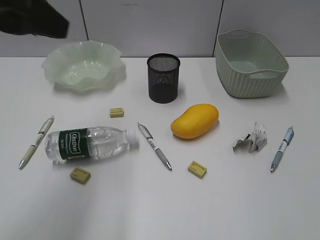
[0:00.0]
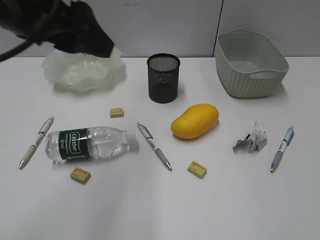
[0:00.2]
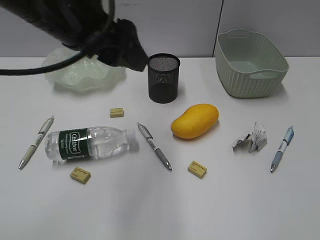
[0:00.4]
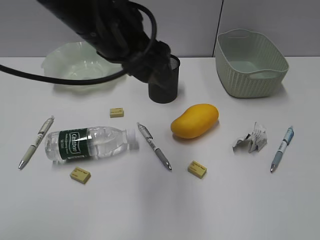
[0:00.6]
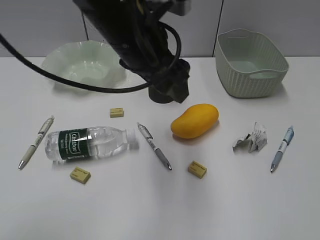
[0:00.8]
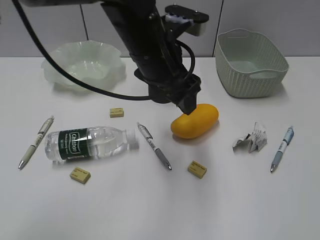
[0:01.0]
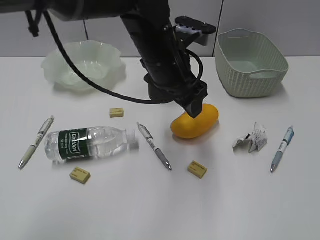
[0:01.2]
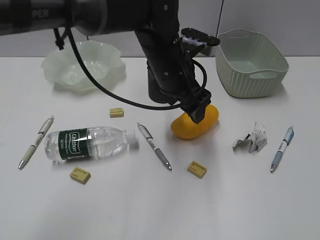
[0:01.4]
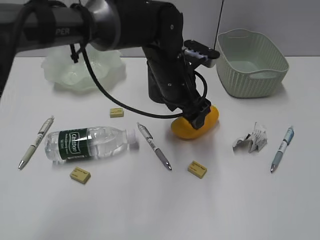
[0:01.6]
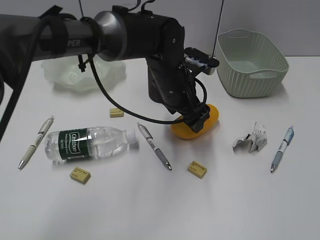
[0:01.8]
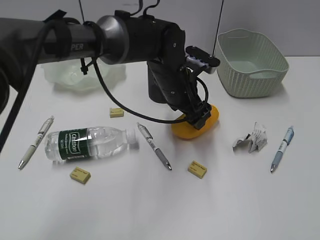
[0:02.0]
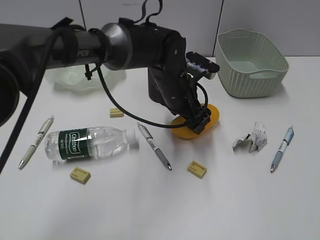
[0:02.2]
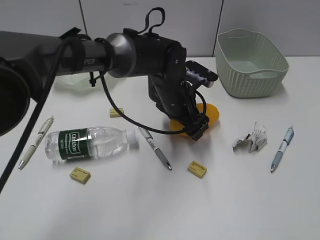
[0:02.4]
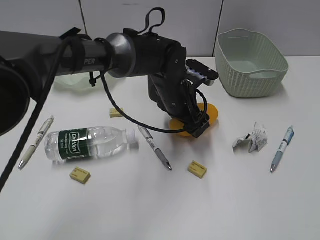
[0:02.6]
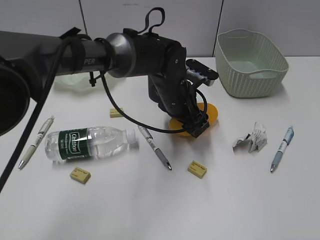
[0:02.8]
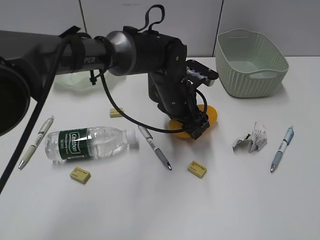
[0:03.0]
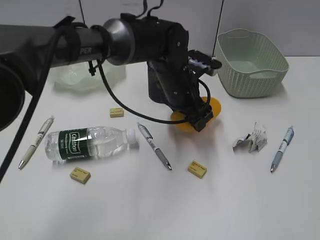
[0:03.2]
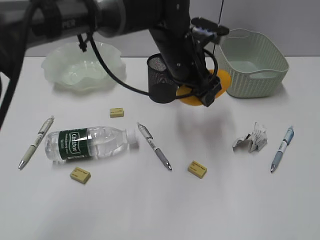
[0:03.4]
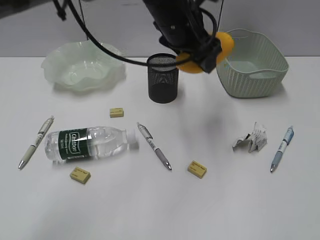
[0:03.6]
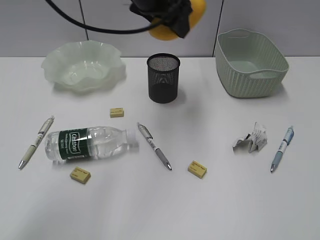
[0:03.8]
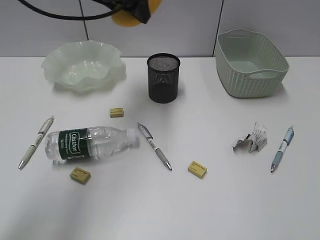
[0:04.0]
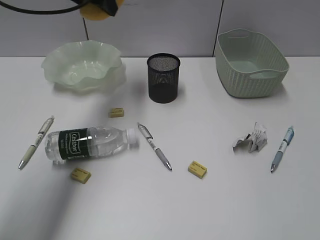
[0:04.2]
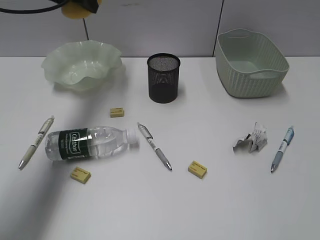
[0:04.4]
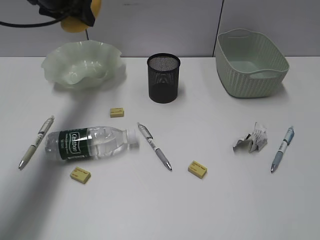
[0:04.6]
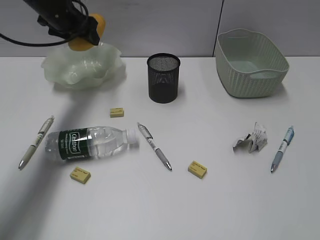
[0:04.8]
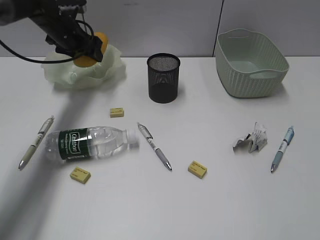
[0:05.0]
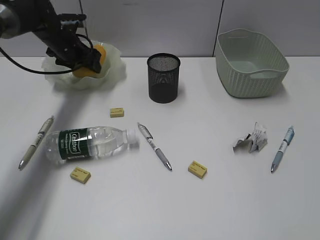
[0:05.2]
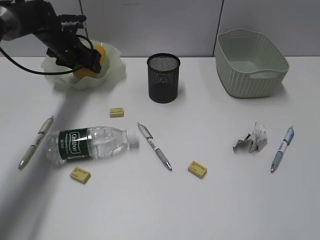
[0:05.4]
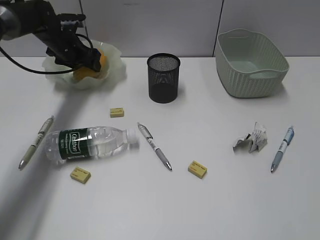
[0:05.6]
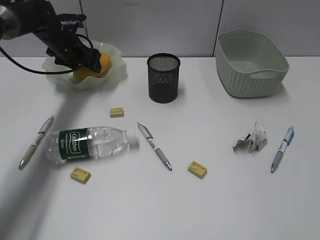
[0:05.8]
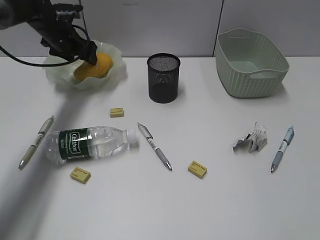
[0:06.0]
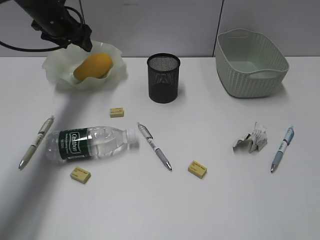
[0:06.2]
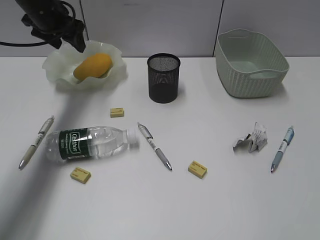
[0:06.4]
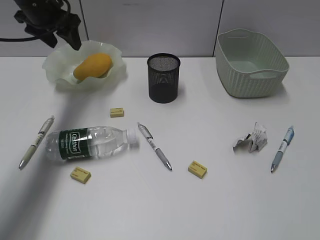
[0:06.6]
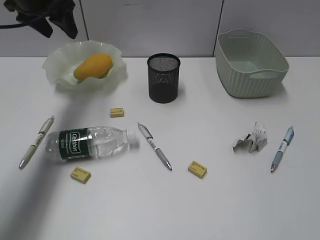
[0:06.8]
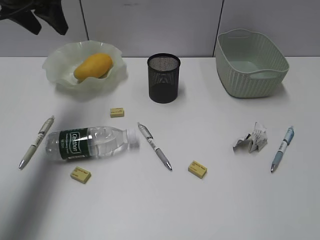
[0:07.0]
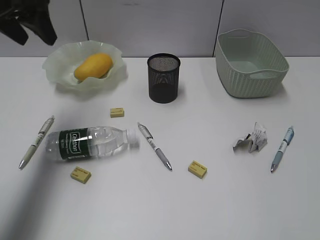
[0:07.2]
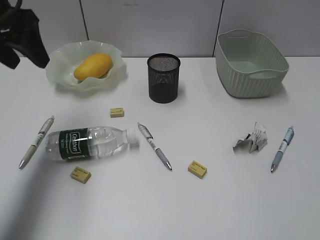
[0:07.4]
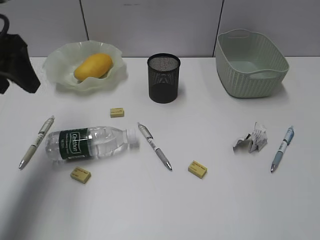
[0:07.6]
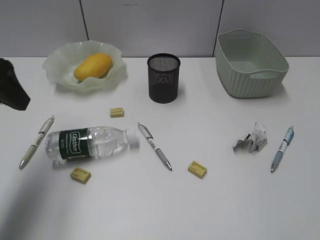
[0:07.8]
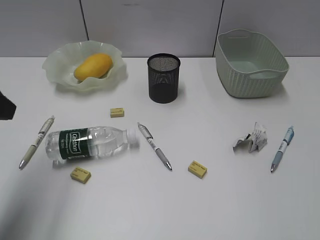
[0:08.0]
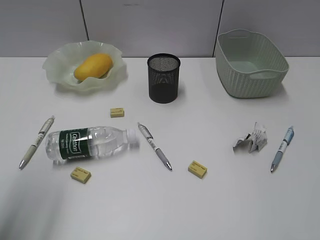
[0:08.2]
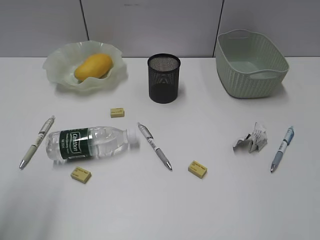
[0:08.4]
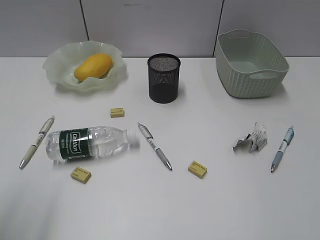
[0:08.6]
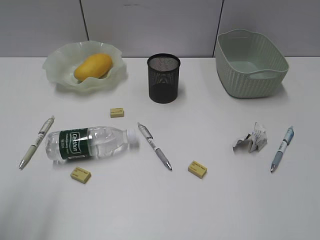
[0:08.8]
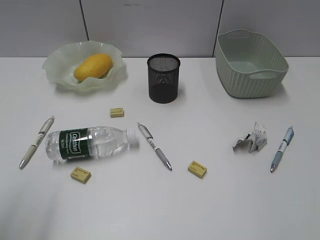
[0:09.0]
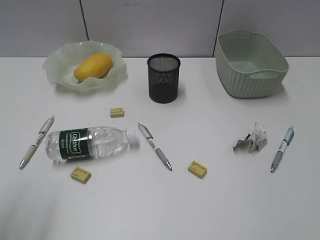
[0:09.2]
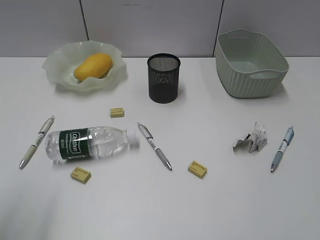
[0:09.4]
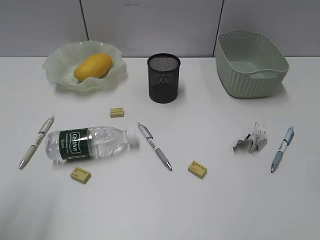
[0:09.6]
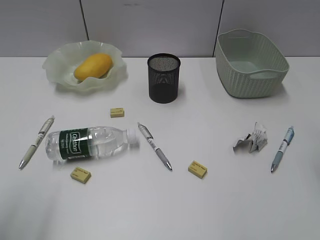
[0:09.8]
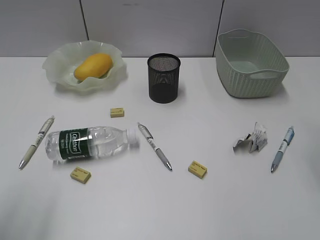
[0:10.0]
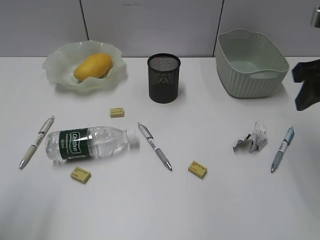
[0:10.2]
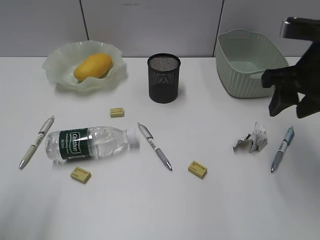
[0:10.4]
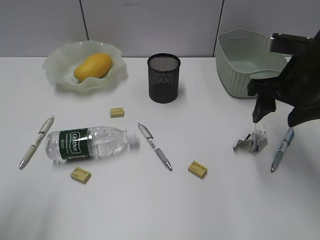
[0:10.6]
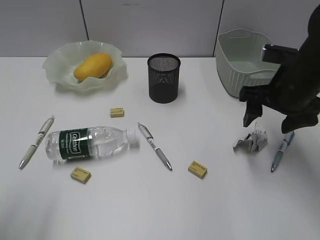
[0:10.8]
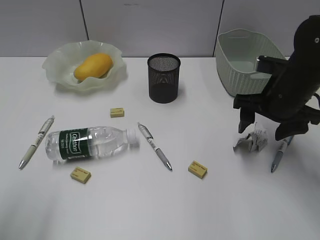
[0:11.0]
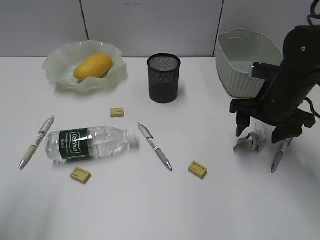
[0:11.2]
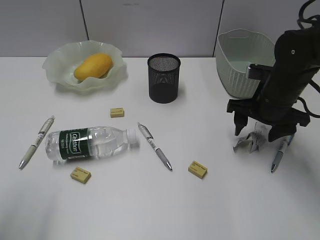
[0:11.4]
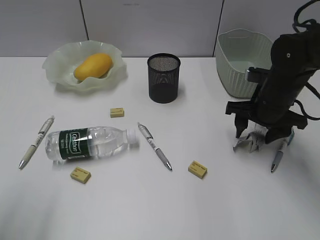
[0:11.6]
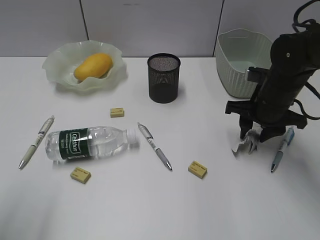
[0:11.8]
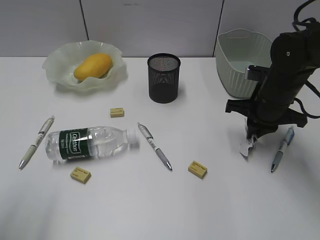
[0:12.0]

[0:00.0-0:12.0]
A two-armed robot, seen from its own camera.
Step, 0:00.0 to 0:02.8: Grasp the mango with left gripper.
Step, 0:03.0 to 0:06.0: Place the mango in the plate with left gripper.
0:00.0 to 0:01.6: The left gripper travels to the right, downward and forward by about 30 cm.
0:01.6 to 0:03.0: The left gripper moves downward, about 5 cm.
0:03.0 to 0:04.4: The left gripper goes approximately 30 cm to the left, upward and forward.
0:04.4 to 0:06.0: The left gripper is displaced downward by approximately 15 cm.
0:06.0 to 0:07.6: The left gripper travels backward and upward by about 30 cm.
0:07.6 to 0:09.0: The left gripper moves backward, some 20 cm.
0:09.0 to 0:10.4: The right gripper shifts some 25 cm forward.
0:10.4 to 0:12.0: The right gripper goes roughly 15 cm downward and forward, and closes up.

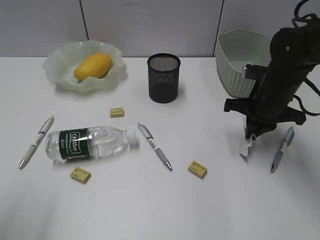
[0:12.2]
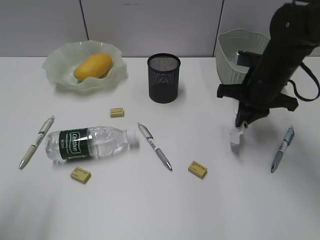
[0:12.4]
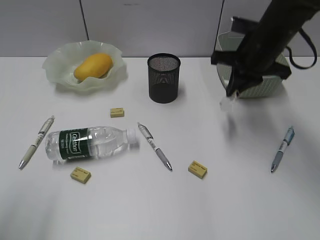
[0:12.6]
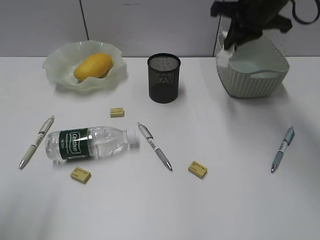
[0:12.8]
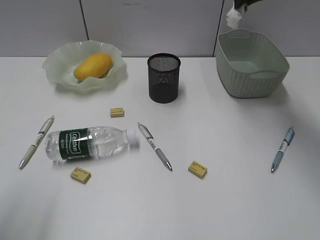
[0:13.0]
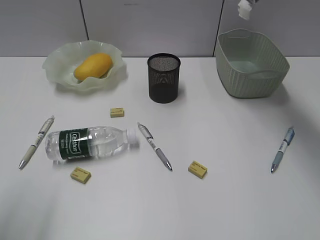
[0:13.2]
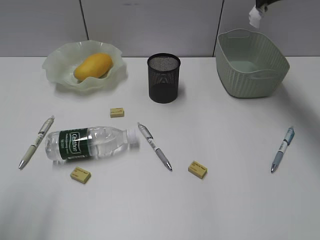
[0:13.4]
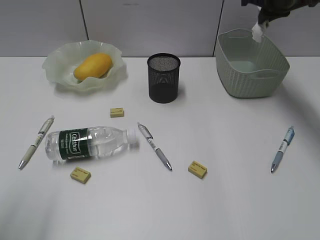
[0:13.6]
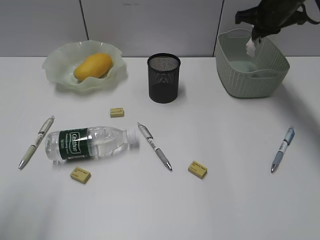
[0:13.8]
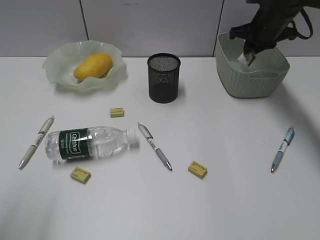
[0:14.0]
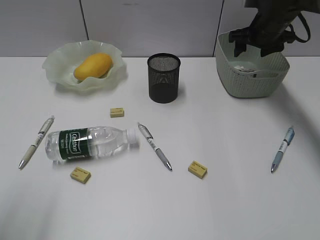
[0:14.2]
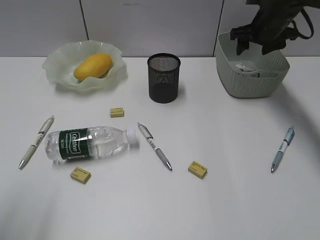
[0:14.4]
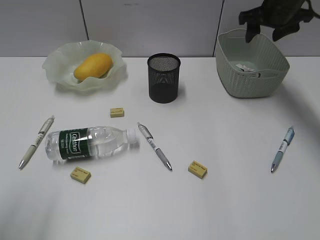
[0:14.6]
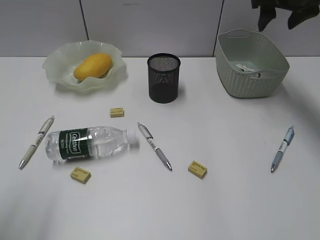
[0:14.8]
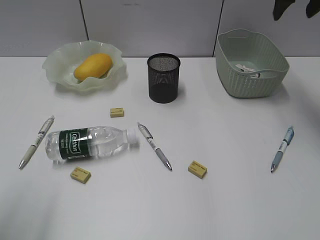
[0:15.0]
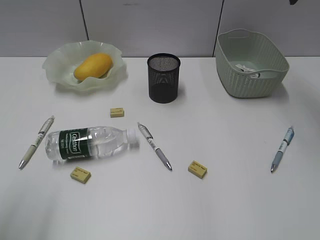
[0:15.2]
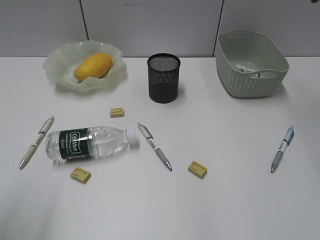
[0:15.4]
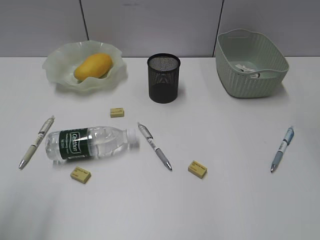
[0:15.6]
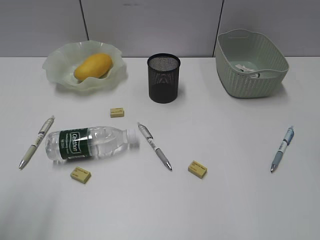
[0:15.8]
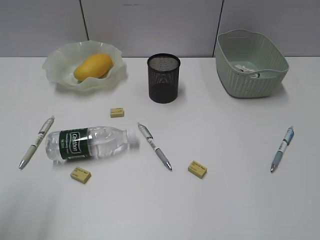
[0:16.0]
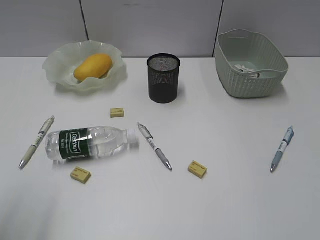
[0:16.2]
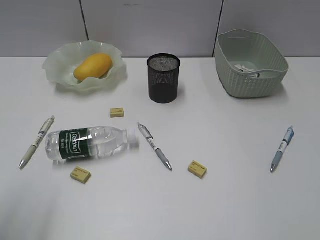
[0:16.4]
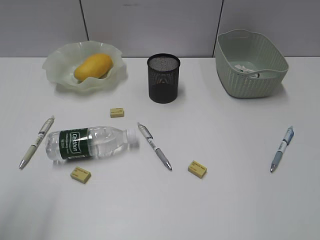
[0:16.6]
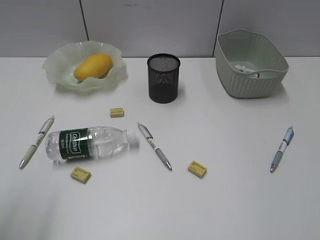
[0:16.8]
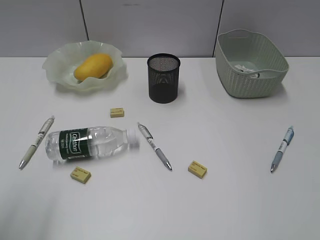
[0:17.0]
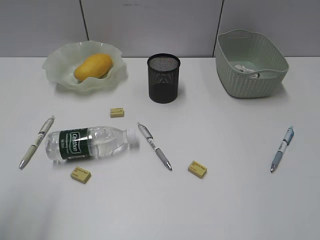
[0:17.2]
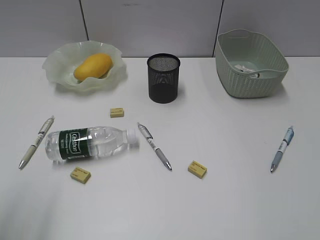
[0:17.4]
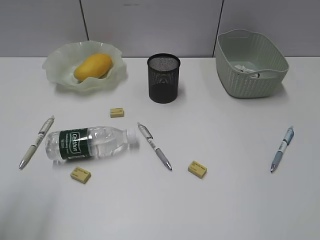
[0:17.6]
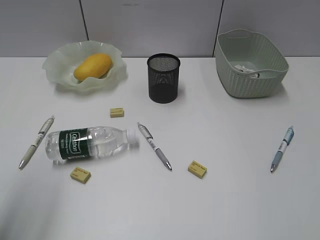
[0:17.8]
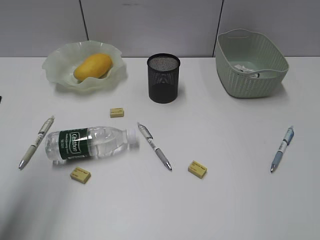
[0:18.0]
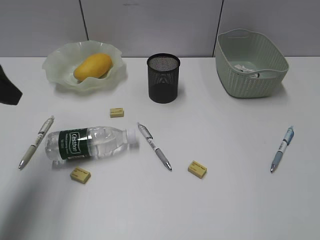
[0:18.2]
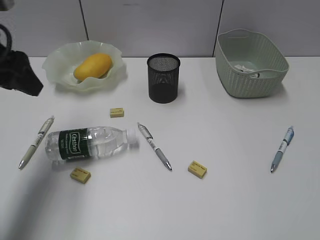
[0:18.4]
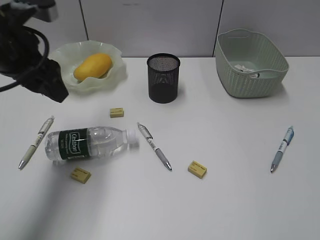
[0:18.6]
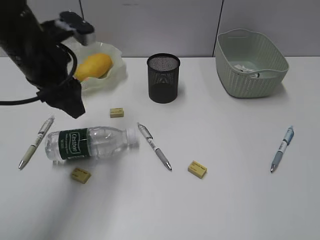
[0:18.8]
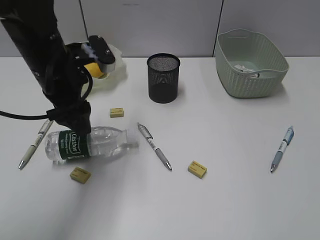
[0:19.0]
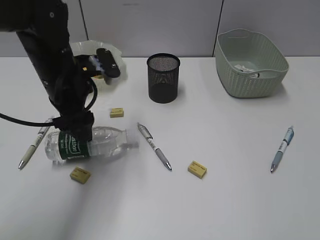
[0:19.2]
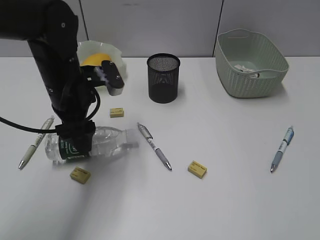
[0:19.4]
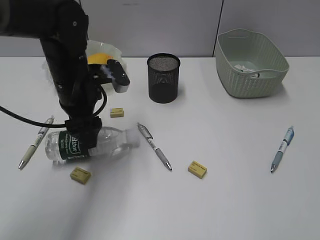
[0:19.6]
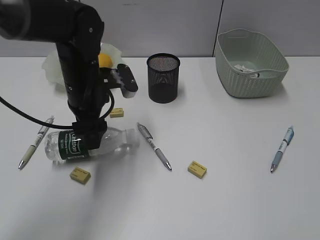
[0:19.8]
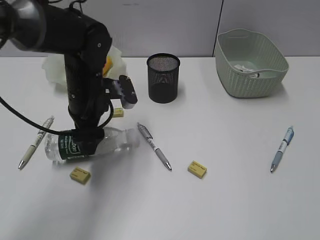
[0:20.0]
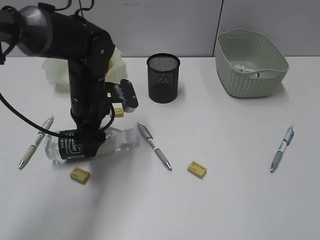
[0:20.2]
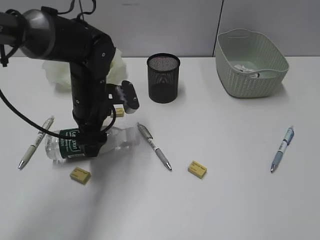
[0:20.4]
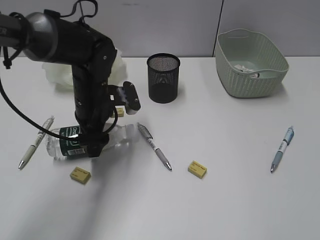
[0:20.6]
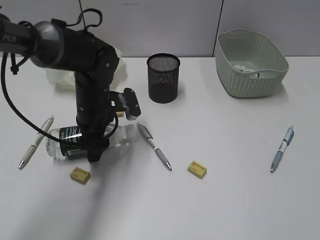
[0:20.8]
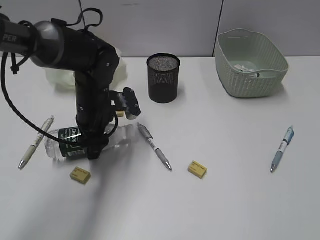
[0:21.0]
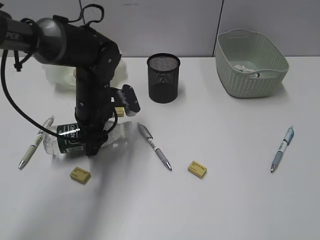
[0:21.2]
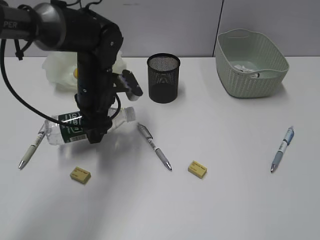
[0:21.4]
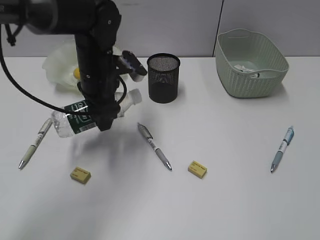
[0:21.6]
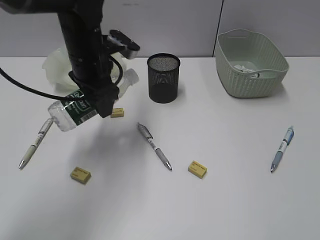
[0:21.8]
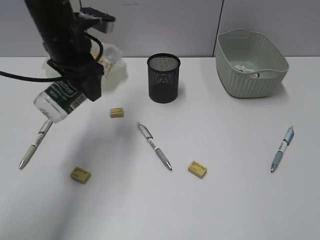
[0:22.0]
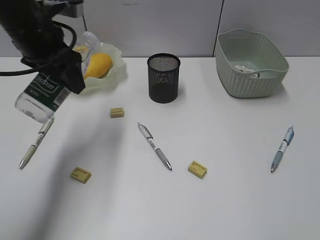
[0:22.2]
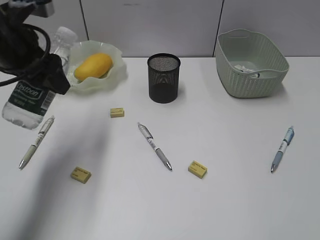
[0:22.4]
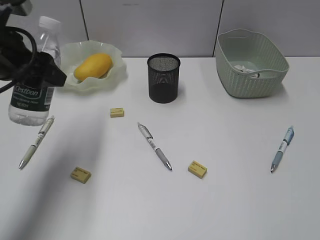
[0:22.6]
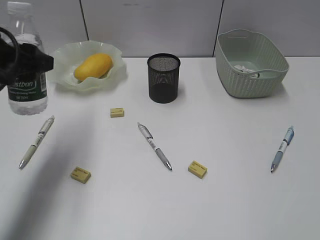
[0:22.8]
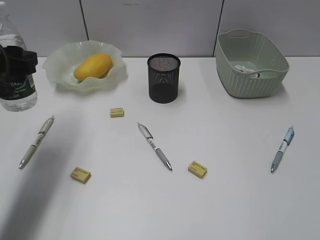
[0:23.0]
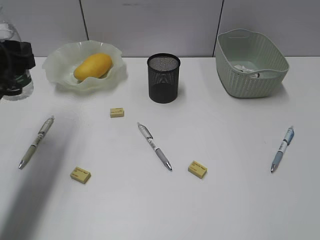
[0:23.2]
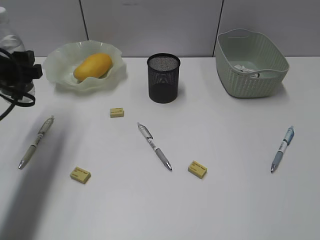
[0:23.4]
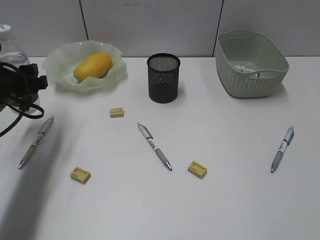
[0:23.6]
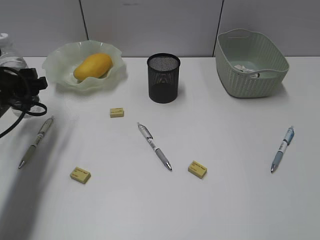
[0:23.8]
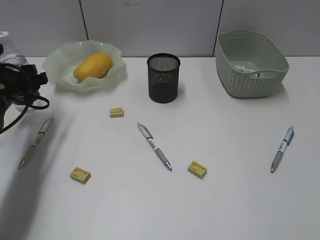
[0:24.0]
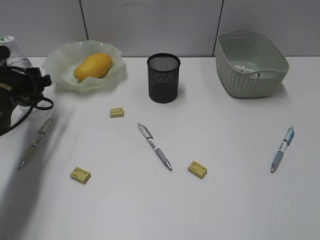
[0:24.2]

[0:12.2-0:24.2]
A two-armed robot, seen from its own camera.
Step, 0:12.2 to 0:14.4: Place the waste paper in the basket with right gripper.
Step, 0:14.6 to 0:20.8: Grasp the bottle with left gripper.
0:12.2 to 0:13.8: The right gripper heads forward and upward, covering some 20 cm.
0:13.8 to 0:15.2: The right gripper is displaced upward and backward by some 15 cm, and opens.
0:15.2 to 0:16.6: The right gripper goes approximately 35 cm backward.
0:16.6 to 0:18.2: The left gripper goes roughly 15 cm forward.
0:18.2 to 0:19.8: The left gripper shifts roughly 20 cm to the right, downward and forward.
0:19.8 to 0:21.2: The left gripper goes roughly 5 cm downward.
0:21.2 to 0:22.6: The left gripper is displaced upward, to the left and backward by some 20 cm.
0:22.6 to 0:24.2: The left gripper moves downward and forward, approximately 15 cm.
